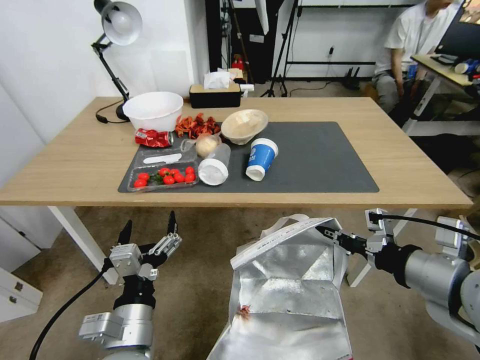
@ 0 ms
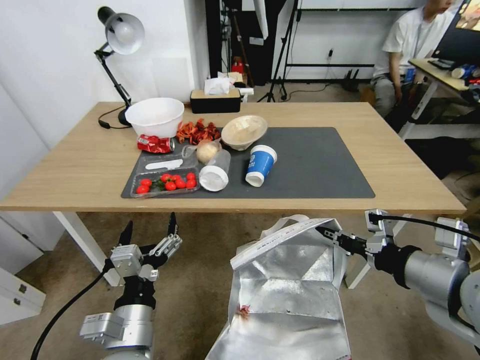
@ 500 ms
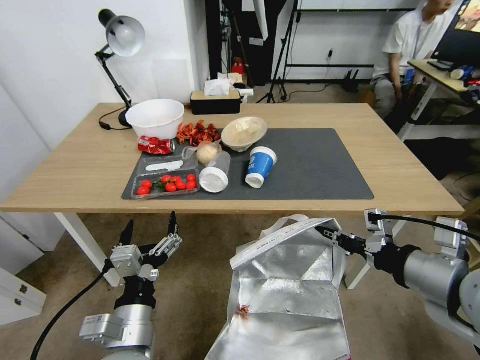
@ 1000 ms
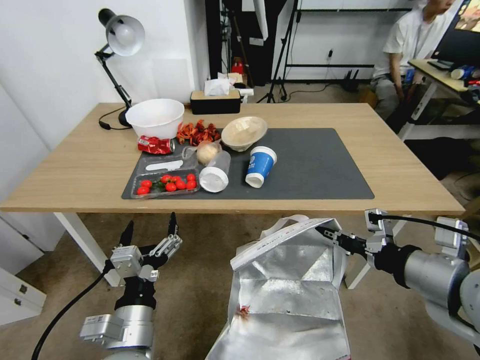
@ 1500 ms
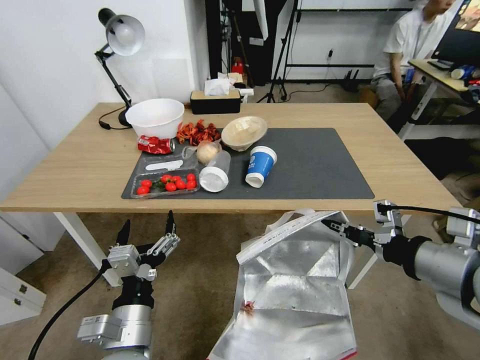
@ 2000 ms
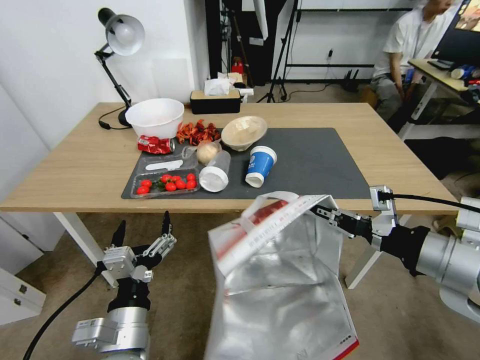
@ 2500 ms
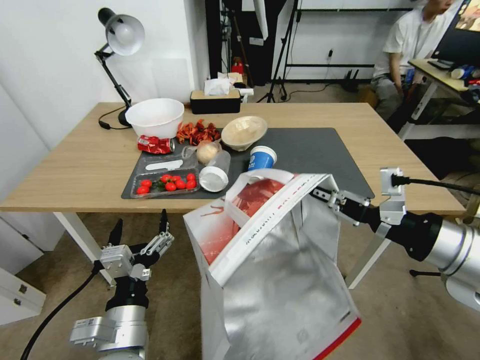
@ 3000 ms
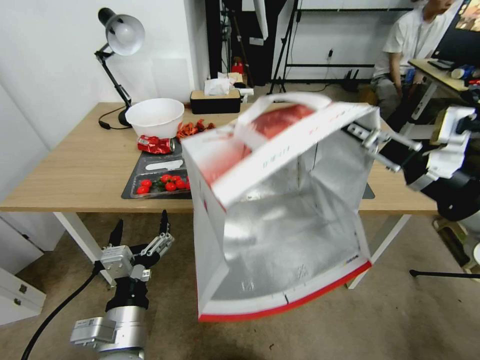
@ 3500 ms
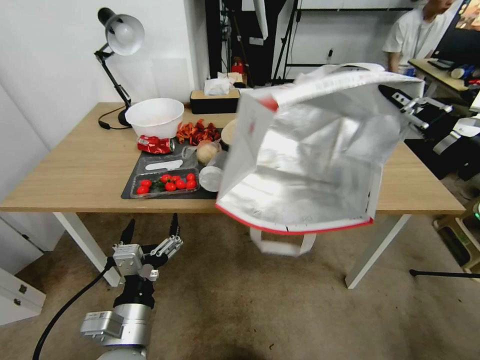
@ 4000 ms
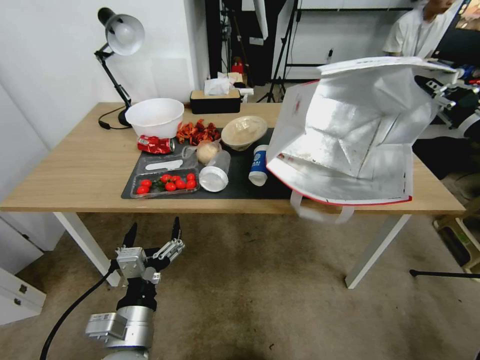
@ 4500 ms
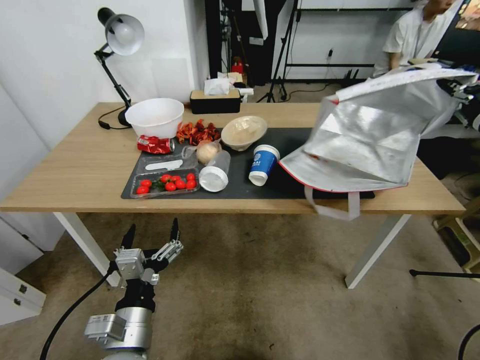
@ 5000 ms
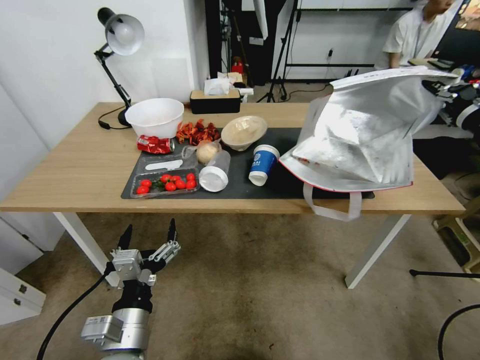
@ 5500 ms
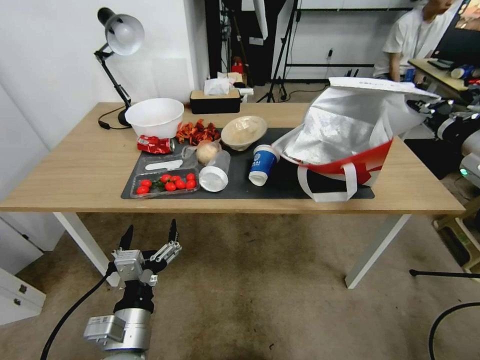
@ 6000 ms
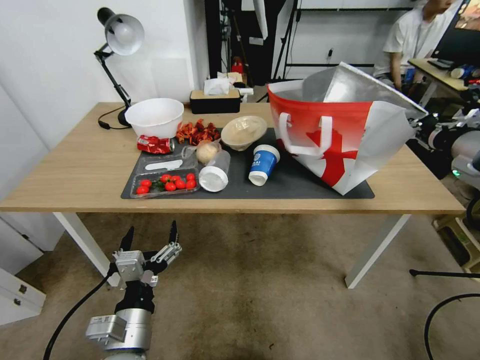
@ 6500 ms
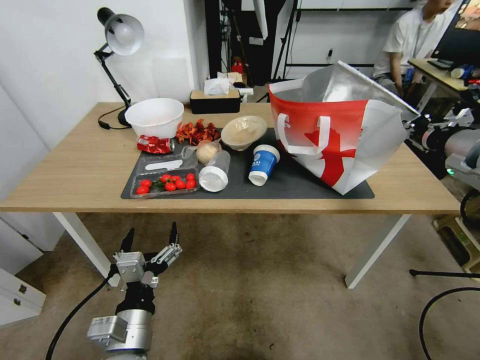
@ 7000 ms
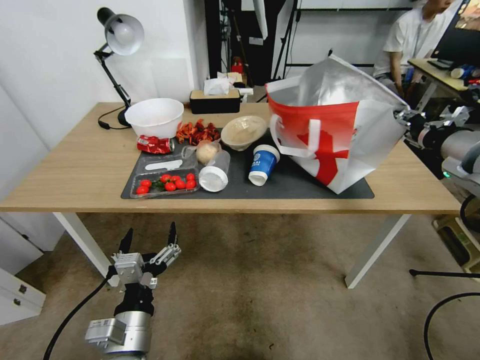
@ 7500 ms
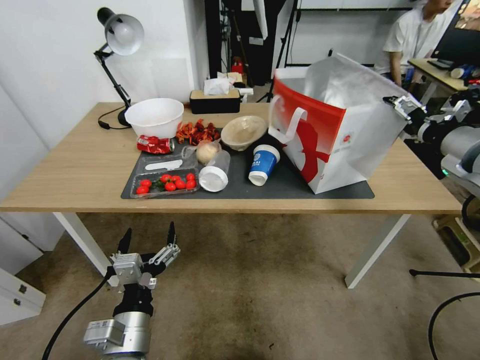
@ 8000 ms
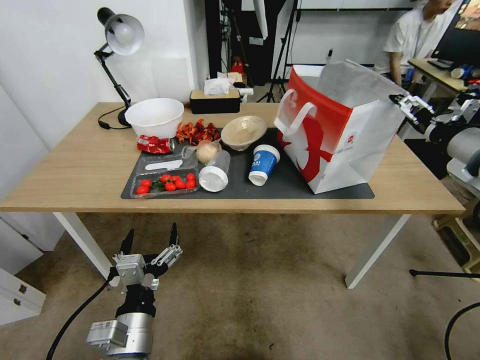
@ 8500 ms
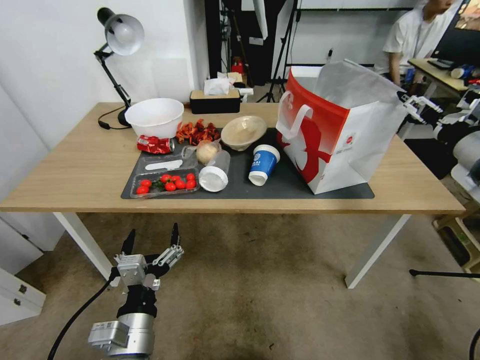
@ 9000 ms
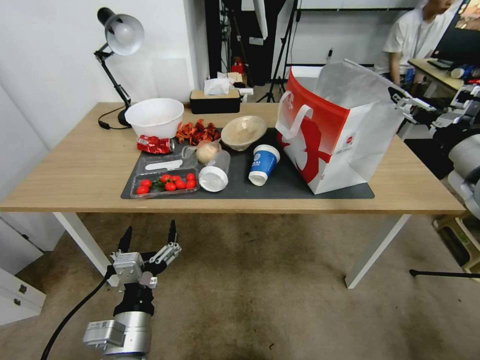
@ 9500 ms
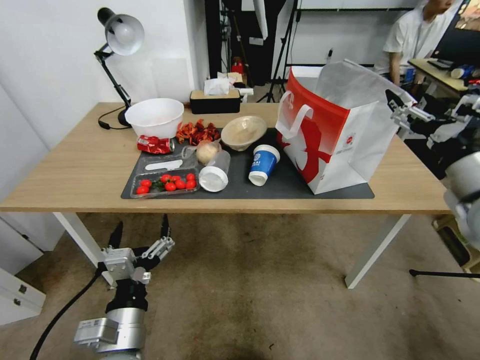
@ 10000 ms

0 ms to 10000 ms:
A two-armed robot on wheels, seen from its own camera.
Task of the whole recording: Pick up the food delivery bag from the floor and place it on the table.
2000 ms to 4000 ms: The right gripper moves upward, some 5 cm.
4000 ms to 6000 ms: The right gripper travels forward by some 10 cm.
6000 ms to 8000 ms: The right gripper opens.
8000 ms to 10000 ms: The right gripper shifts by some 5 cm.

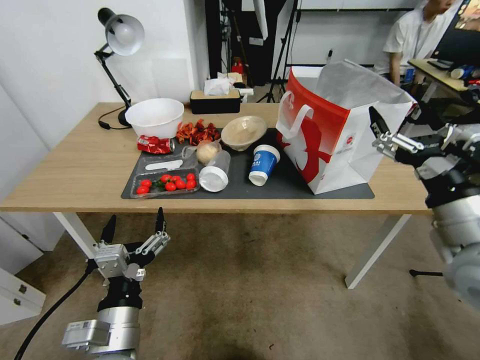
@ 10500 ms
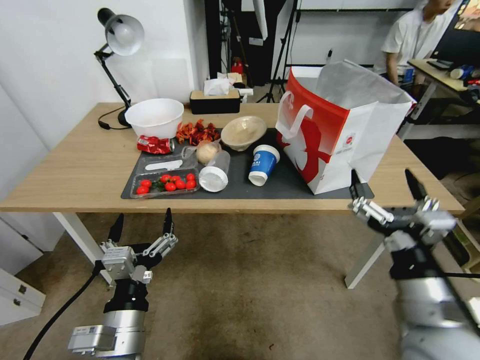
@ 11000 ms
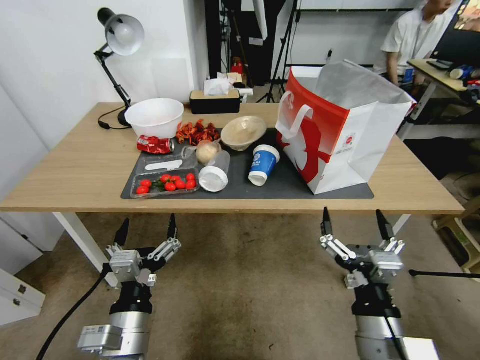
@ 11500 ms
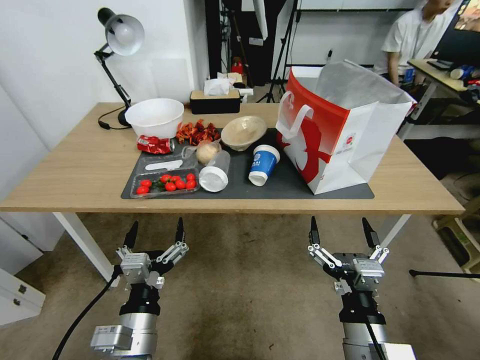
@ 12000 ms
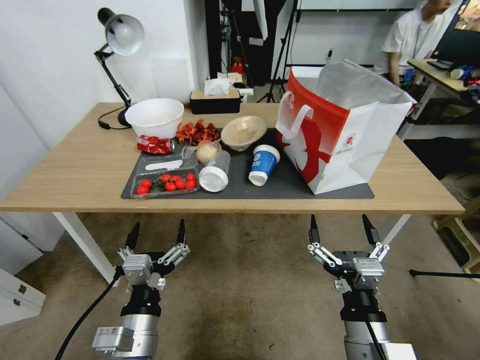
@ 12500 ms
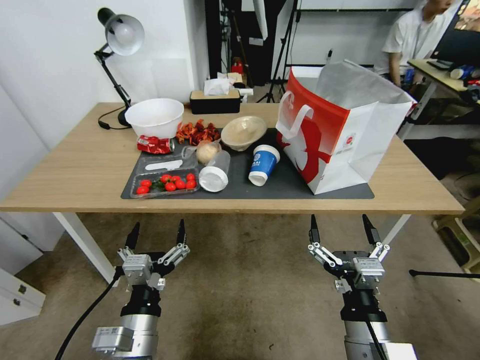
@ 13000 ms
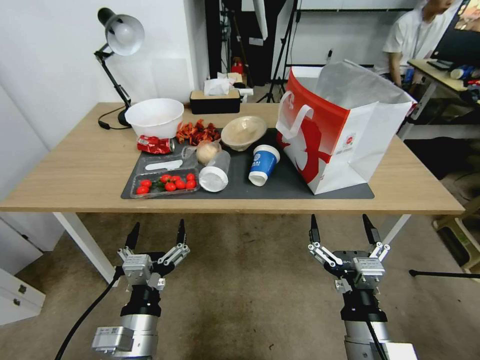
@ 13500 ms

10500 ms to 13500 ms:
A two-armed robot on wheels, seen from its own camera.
Task of the whole recording: Pick up the food delivery bag from the floor and place it on the table.
10500 ms to 12000 ms: The right gripper goes about 25 cm downward, to the left and backward.
12000 ms to 13500 ms: The two grippers keep their place.
